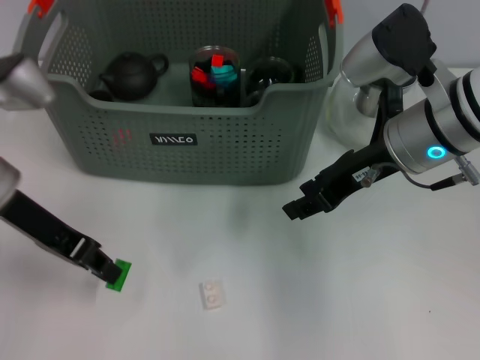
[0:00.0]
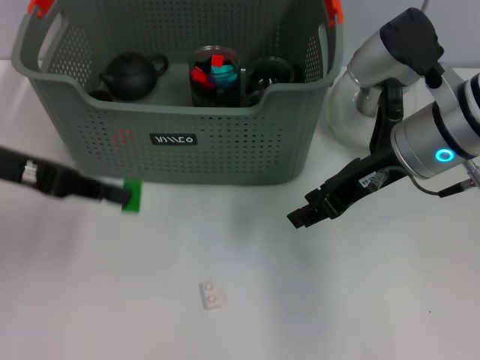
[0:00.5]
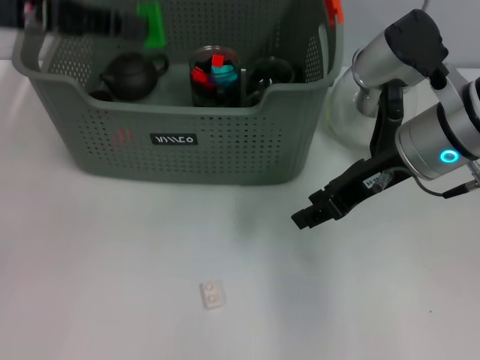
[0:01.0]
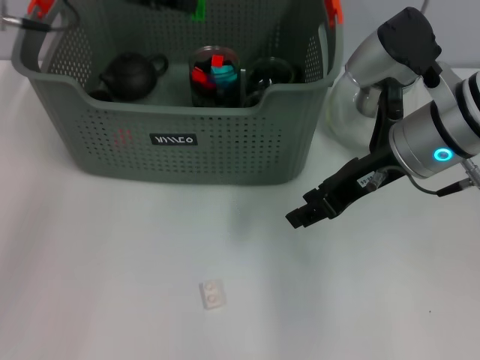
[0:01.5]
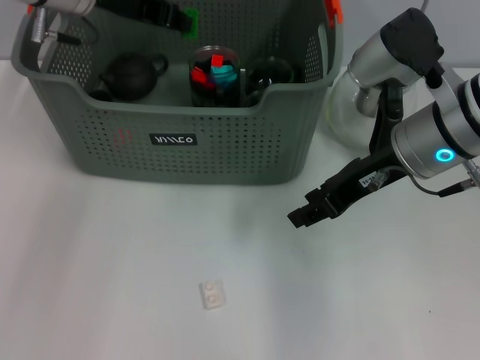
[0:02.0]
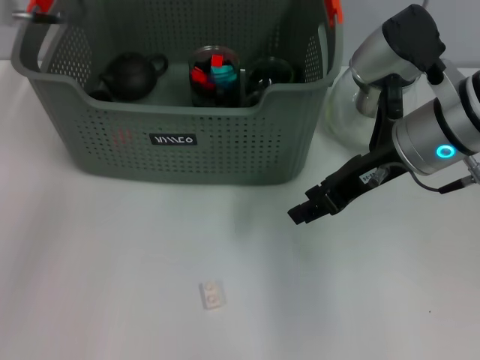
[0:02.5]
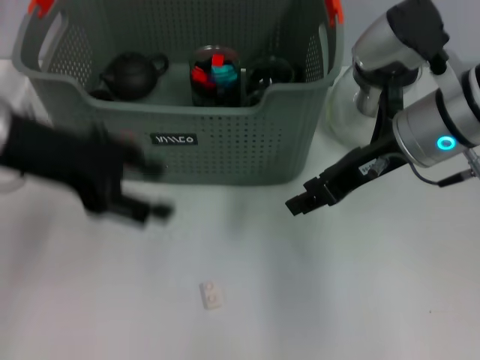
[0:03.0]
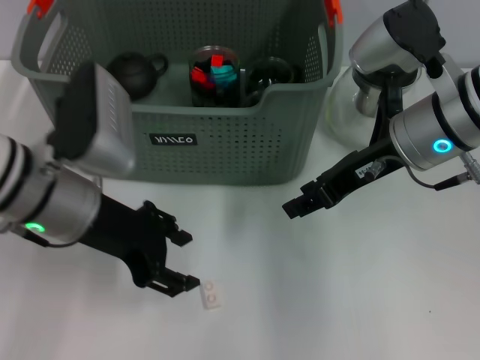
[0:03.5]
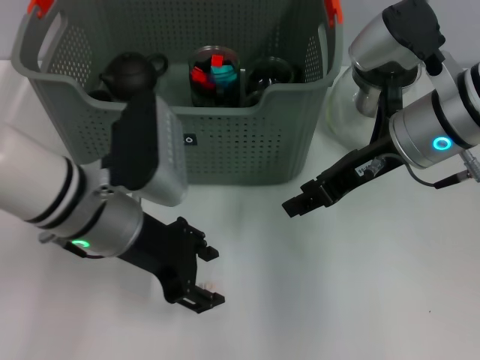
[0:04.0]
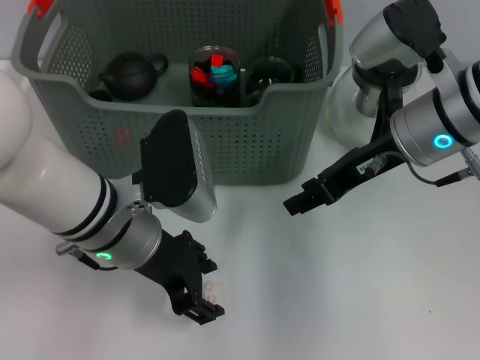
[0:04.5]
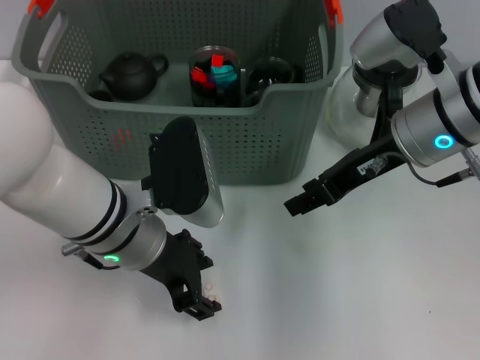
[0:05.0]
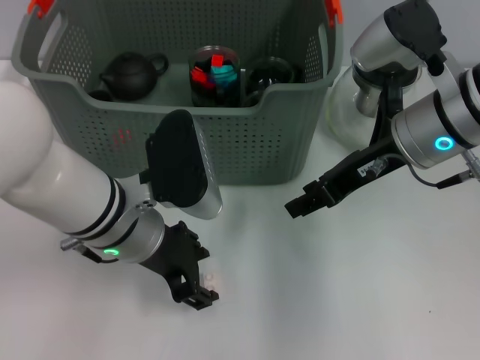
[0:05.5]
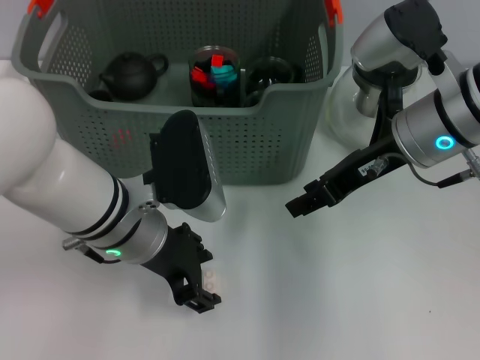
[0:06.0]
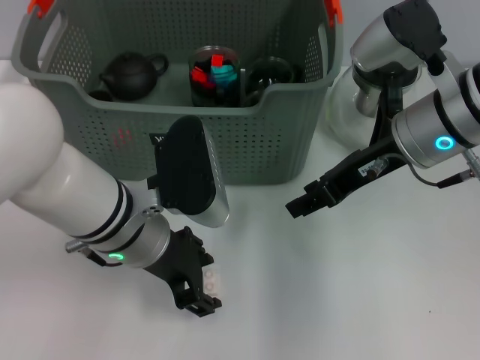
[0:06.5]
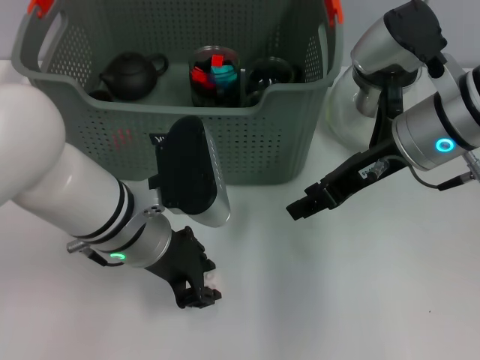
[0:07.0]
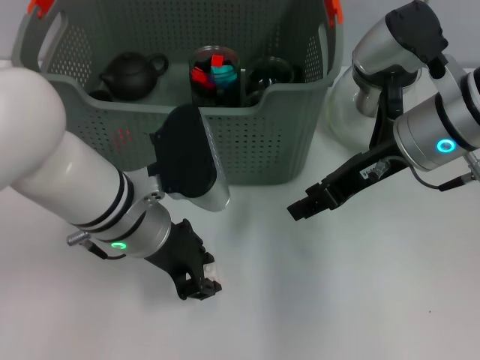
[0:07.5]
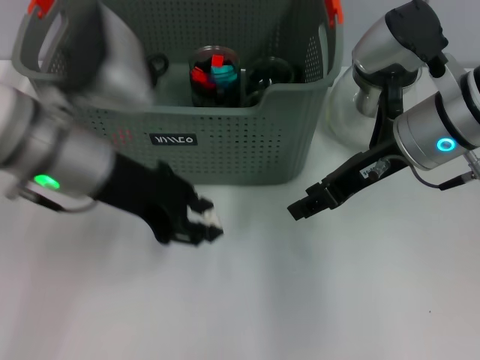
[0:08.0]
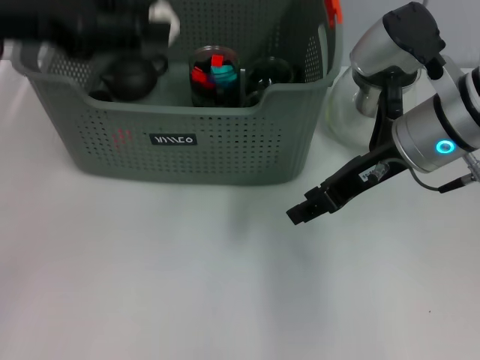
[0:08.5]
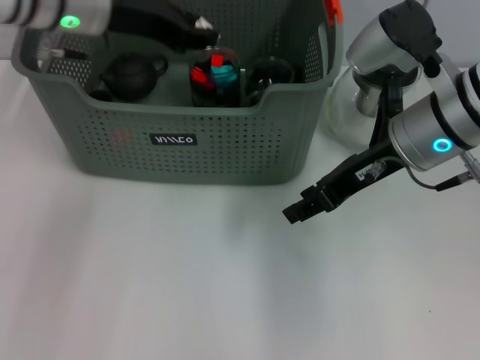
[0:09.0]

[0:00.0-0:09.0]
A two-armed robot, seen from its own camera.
Task of the whole recording: pick up the teacup on the table and place it into the storage bin, pick up the block on the table and place it into the storage bin.
Step, 0:00.0 to 0:02.0: Place the green block in the storage box with left gripper.
Step, 0:02.5 to 0:06.5: Grasp the white block with left gripper.
0:00.0 to 0:02.0: The left gripper shifts some 15 cm forward and upward.
0:02.0 to 0:04.5: The left gripper is displaced backward, downward and to the right by some 20 cm, and opens.
0:04.5 to 0:07.0: The grippers move only a little.
0:07.0 to 0:09.0: The left gripper shifts roughly 20 cm forward, upward and to the left.

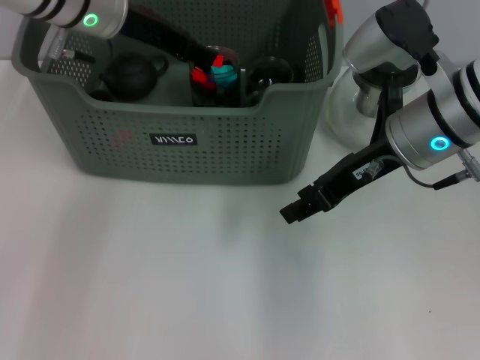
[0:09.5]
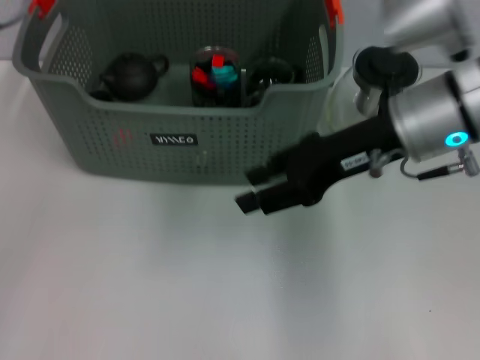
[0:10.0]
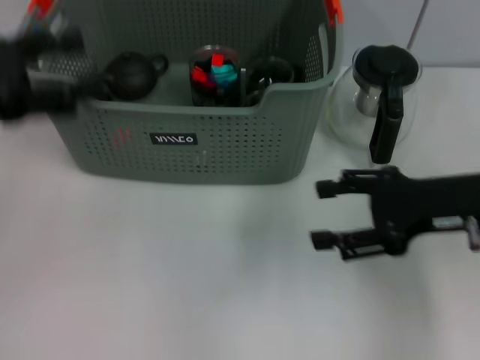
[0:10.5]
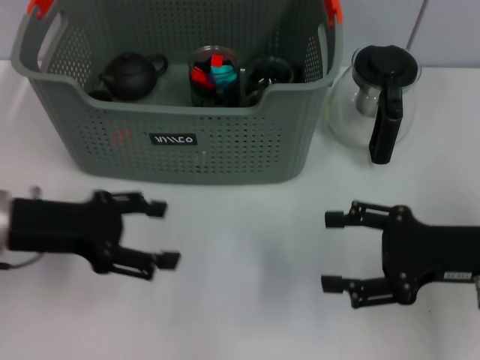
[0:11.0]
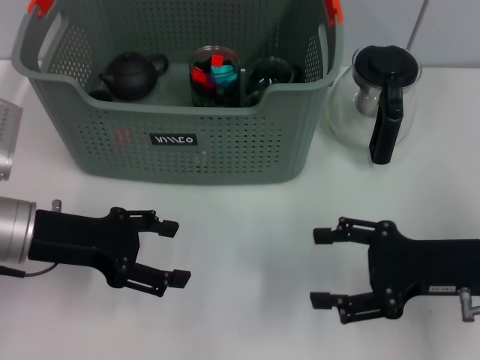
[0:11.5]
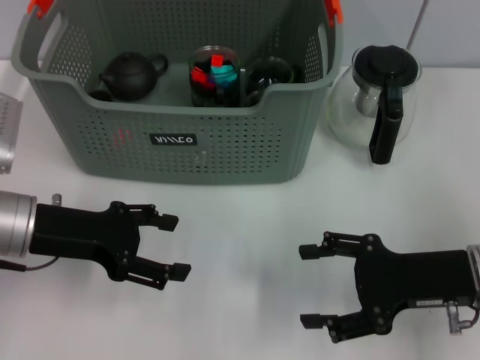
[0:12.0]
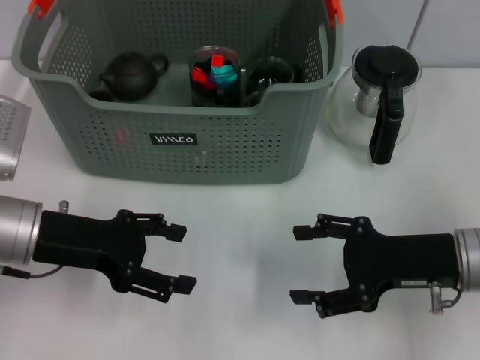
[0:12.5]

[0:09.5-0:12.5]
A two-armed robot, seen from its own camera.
Task of the whole recording: pick up the teacup on the table and place it into the storage bin, pick up the block on the table and place it into the storage bin.
0:09.5 to 0:11.0: The right gripper travels to the right, backward and downward by approximately 15 cm, and opens up. Meanwhile the left gripper heads backward, downward and to the left, covering roughly 20 cm.
0:11.0 to 0:12.5: The grippers stay close to where they were, moving slightly.

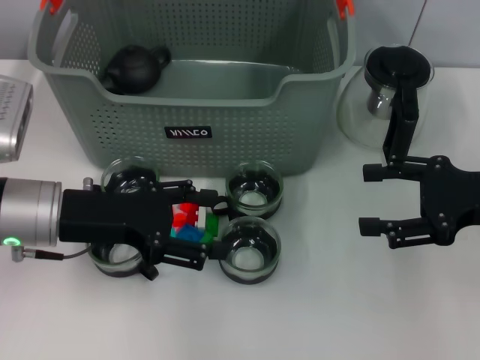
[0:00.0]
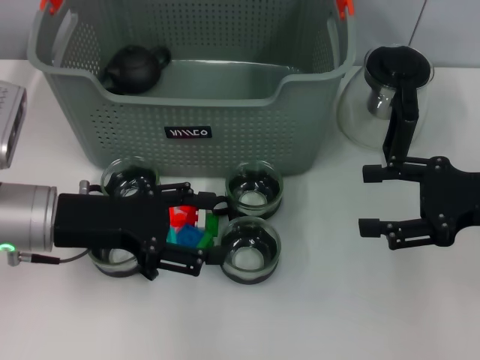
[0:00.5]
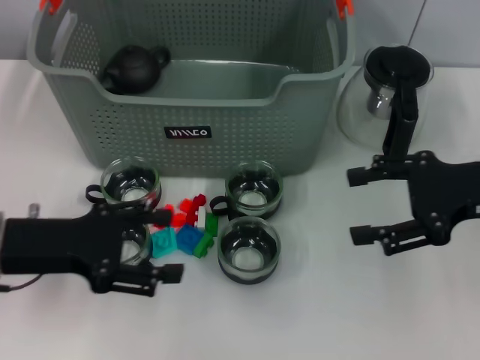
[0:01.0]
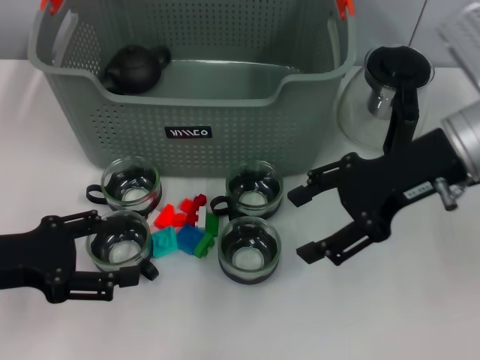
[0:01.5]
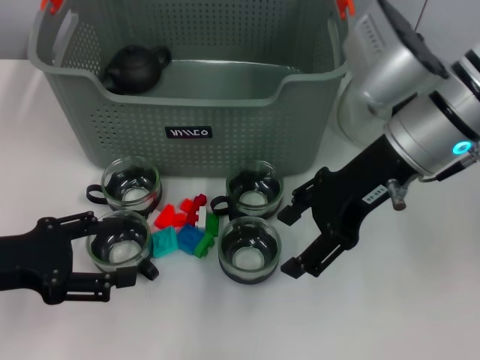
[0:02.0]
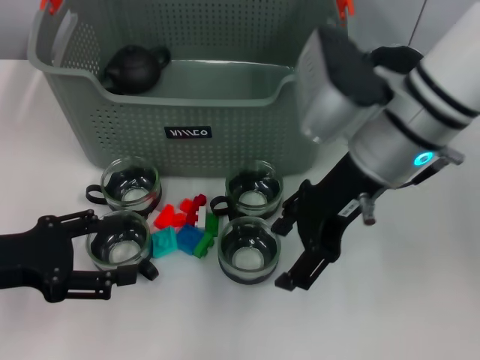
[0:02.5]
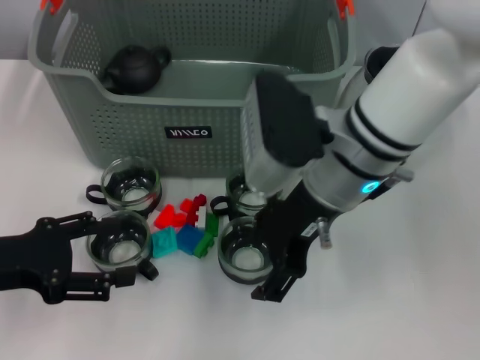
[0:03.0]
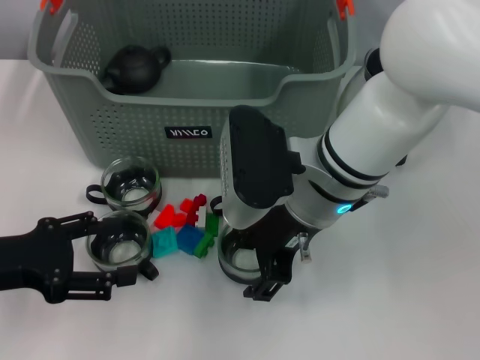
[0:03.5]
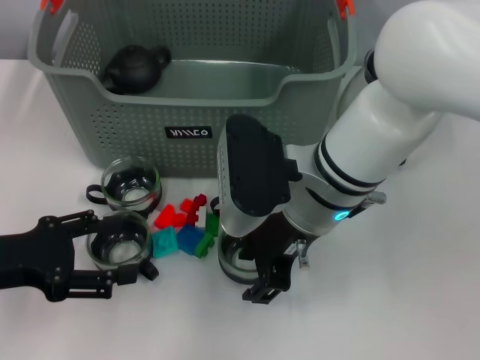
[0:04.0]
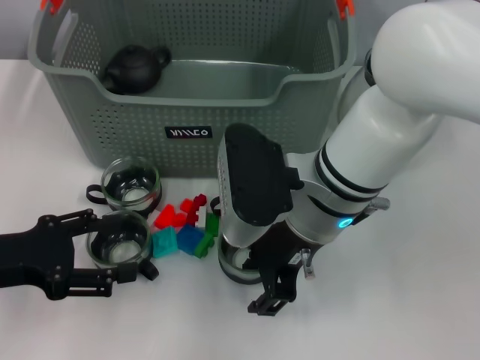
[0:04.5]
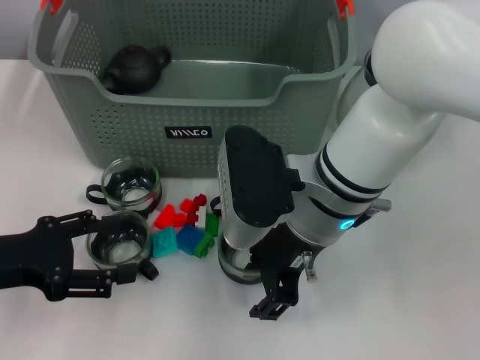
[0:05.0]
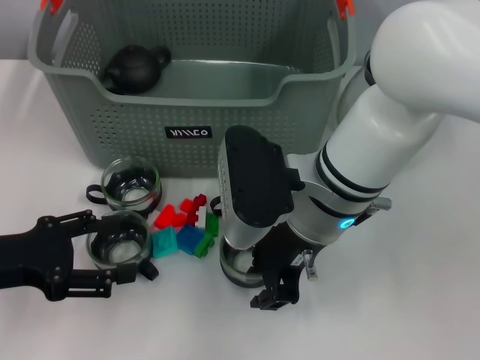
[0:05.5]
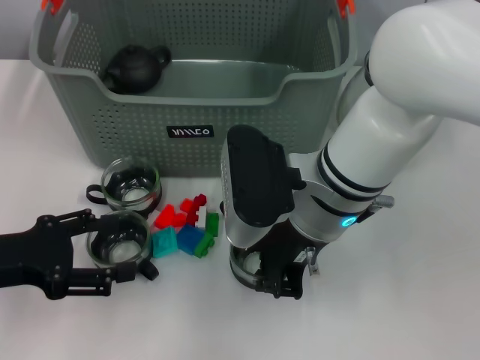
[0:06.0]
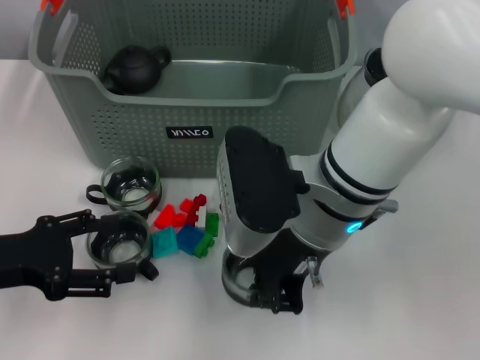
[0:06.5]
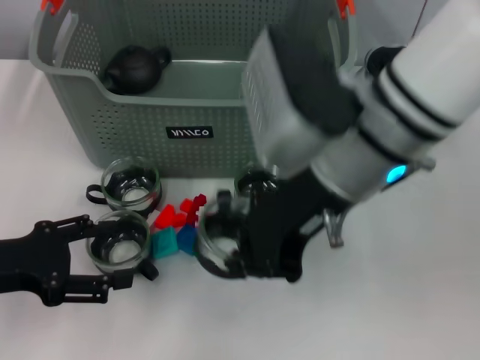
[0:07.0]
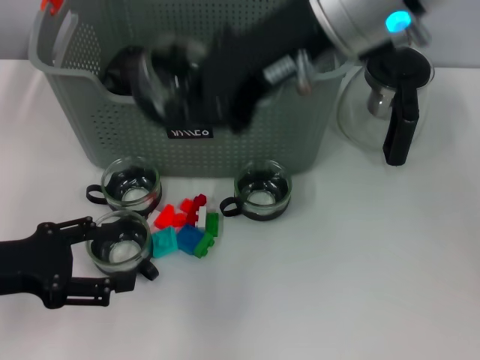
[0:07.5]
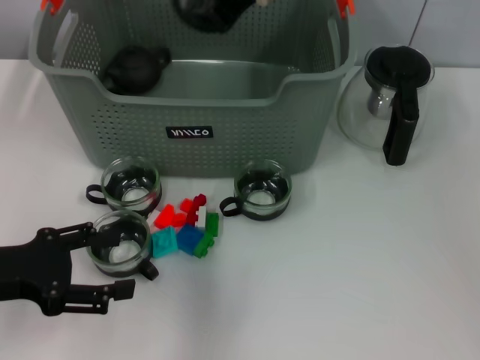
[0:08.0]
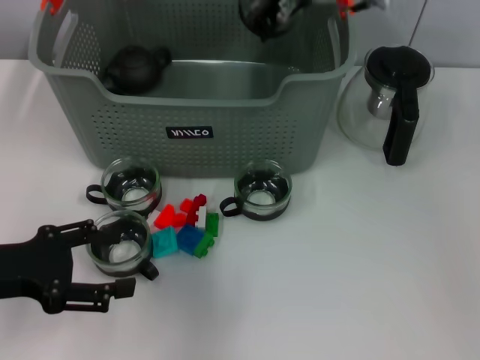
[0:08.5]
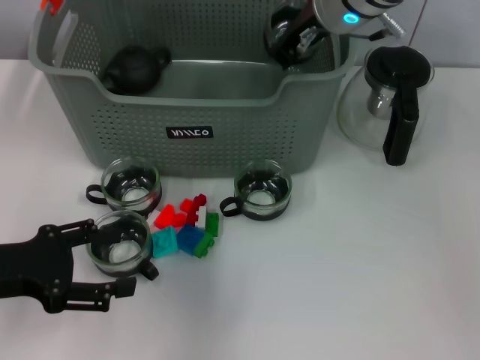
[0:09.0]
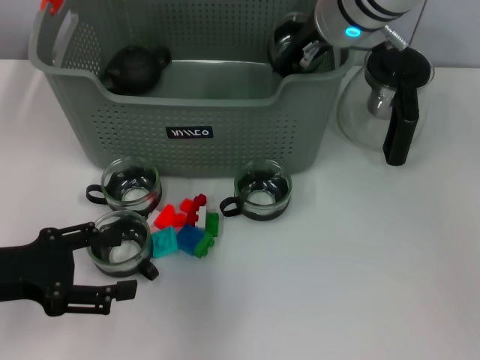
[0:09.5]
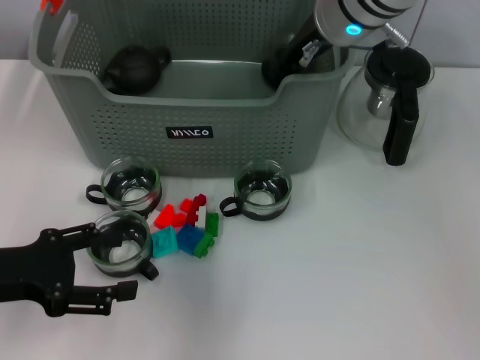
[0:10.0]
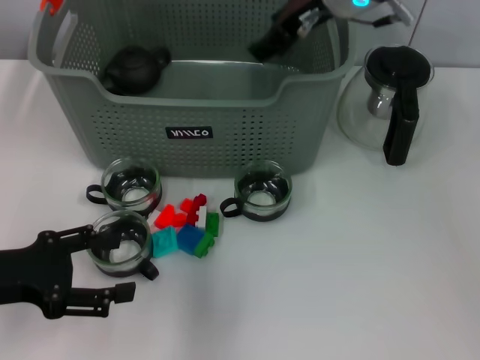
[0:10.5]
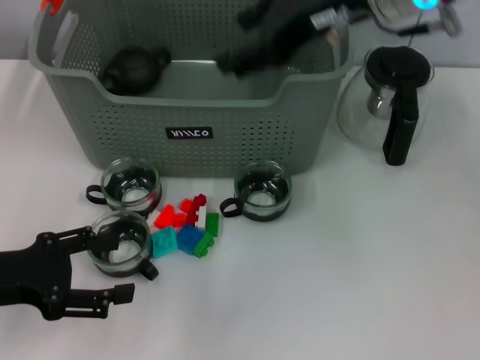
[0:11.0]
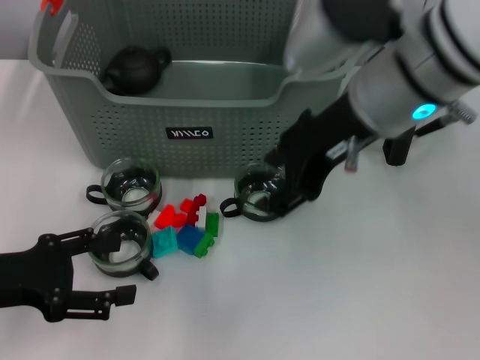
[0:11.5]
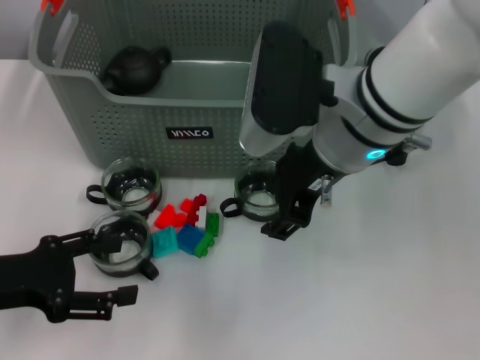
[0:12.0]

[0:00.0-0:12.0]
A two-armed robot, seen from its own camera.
Task of the whole recording: pick up the teacup on the table and place it into the storage bin, pick up the block on the table and place it into the storage bin.
Step, 0:00.0 to 0:05.5: Grasp the cup with right gripper.
Step, 0:06.0 to 0:10.0: Place the cup in the storage box with right gripper.
0:00.0 to 0:02.0: The left gripper heads to the left and backward, covering some 10 cm. The right gripper heads to the left and upward, covering roughly 15 cm.
0:02.0 to 0:04.0: The right gripper shifts some 10 cm to the left and downward.
0:04.0 to 0:06.0: The right gripper closes.
0:06.0 to 0:08.0: The right gripper is displaced upward and forward by roughly 20 cm.
0:08.0 to 0:10.0: The right gripper shifts about 10 cm downward.
0:10.0 to 0:12.0: The right gripper is displaced backward by approximately 10 cm, and opens up.

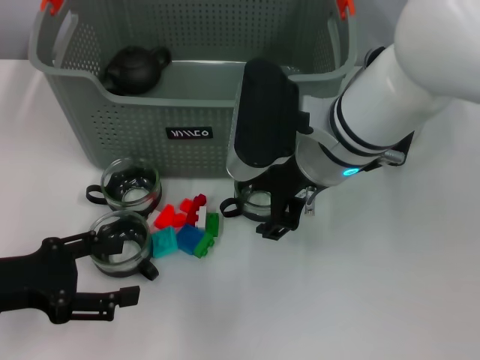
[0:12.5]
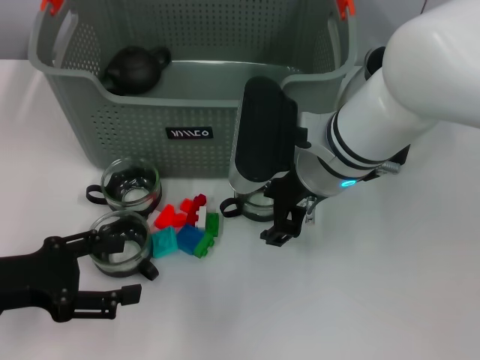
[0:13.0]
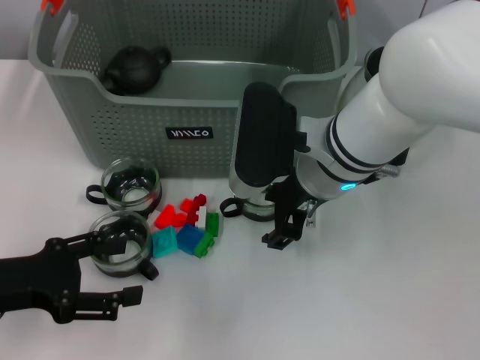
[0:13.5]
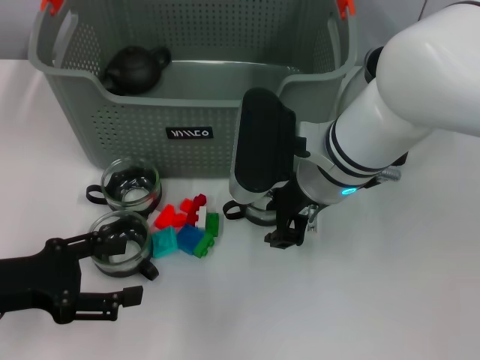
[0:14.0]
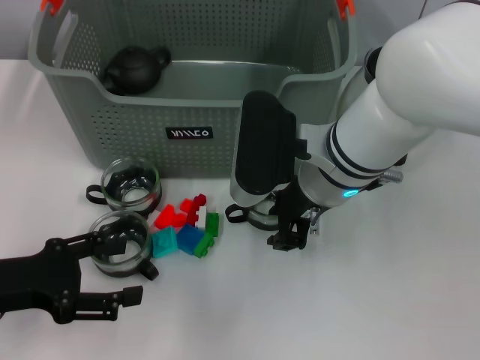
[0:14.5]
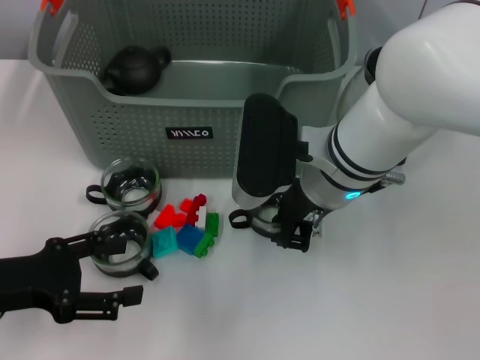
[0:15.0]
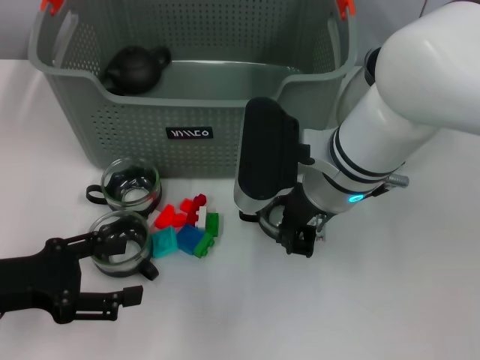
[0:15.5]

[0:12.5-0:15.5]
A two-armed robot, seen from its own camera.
Task of the whole recording: pick up the teacup on the table and place it into the storage bin, pick up the block on the table and place it into the storage bin.
0:12.5 to 0:14.0: The grippers move only a little.
0:14.0 to 0:15.5: The right gripper closes up.
